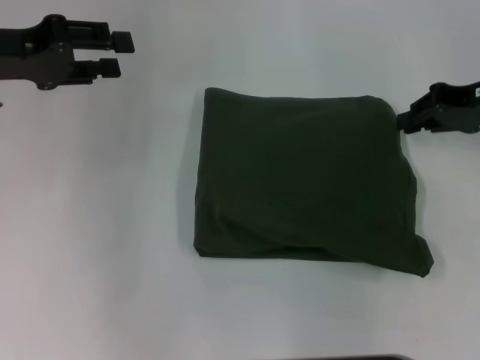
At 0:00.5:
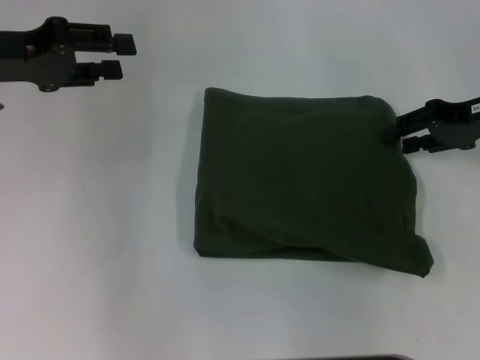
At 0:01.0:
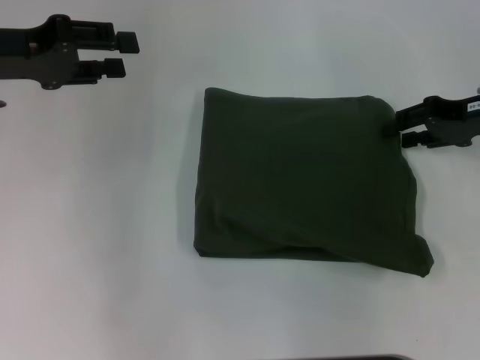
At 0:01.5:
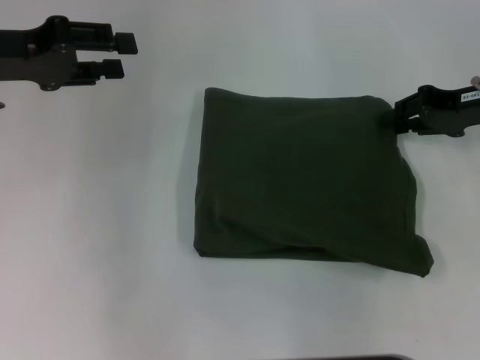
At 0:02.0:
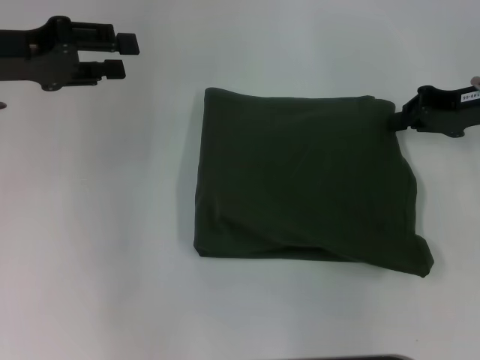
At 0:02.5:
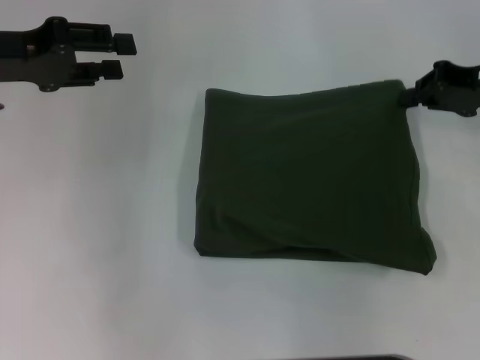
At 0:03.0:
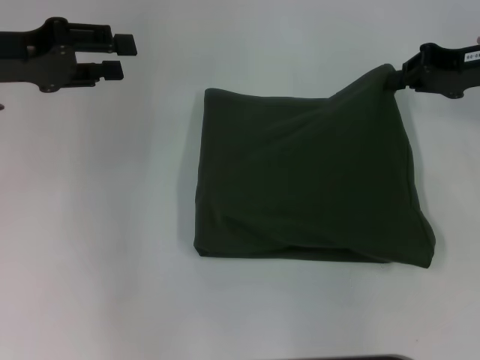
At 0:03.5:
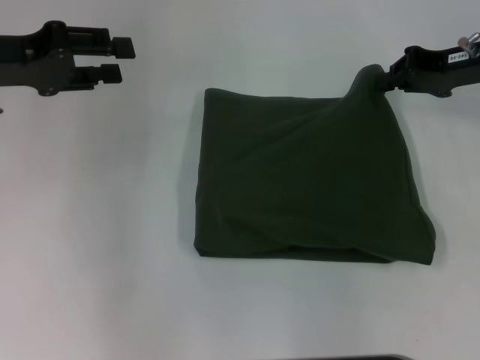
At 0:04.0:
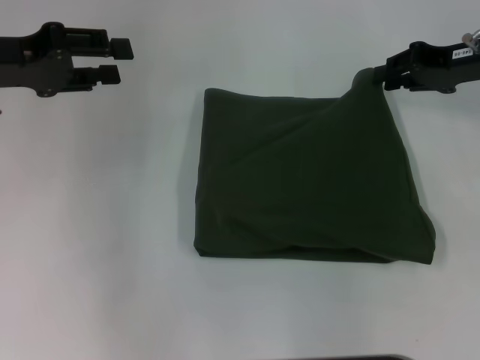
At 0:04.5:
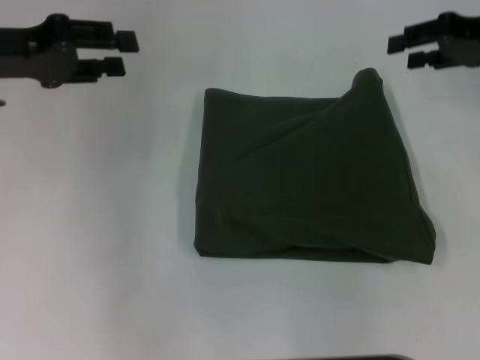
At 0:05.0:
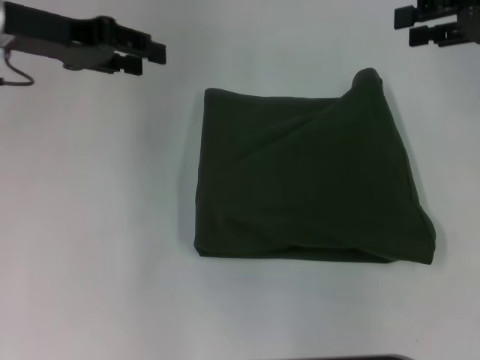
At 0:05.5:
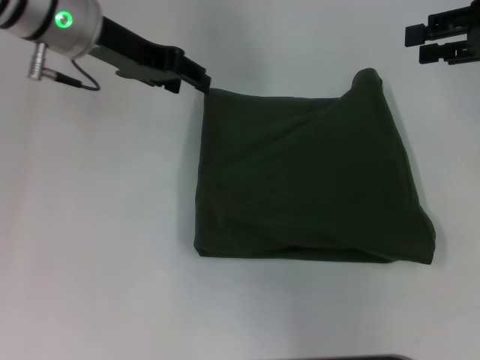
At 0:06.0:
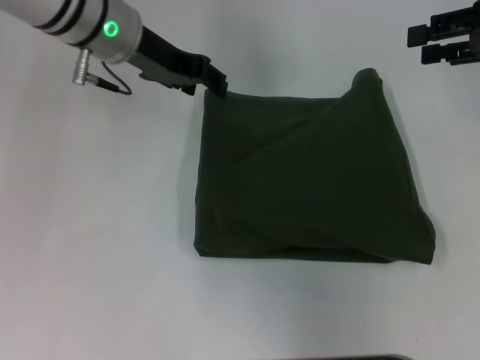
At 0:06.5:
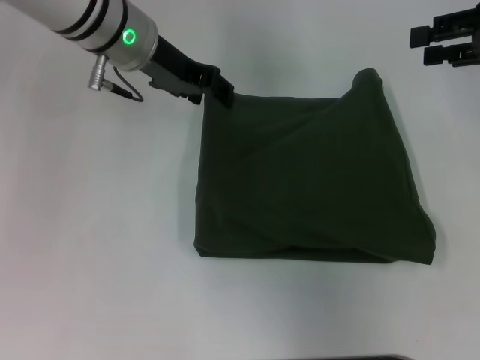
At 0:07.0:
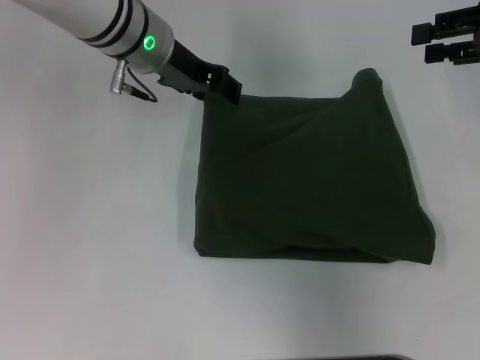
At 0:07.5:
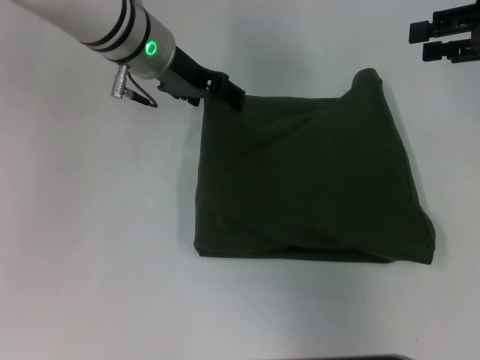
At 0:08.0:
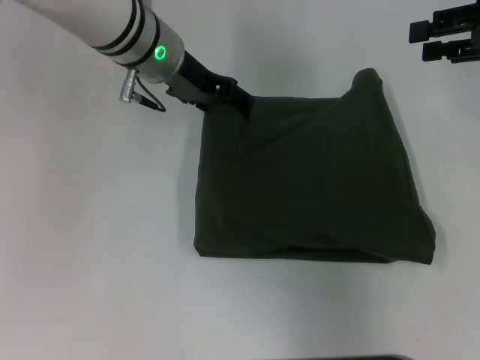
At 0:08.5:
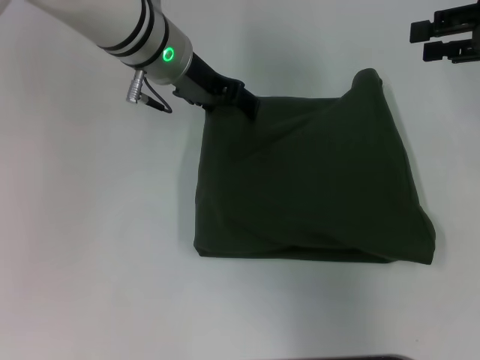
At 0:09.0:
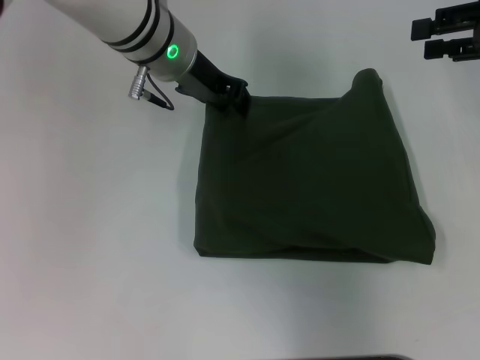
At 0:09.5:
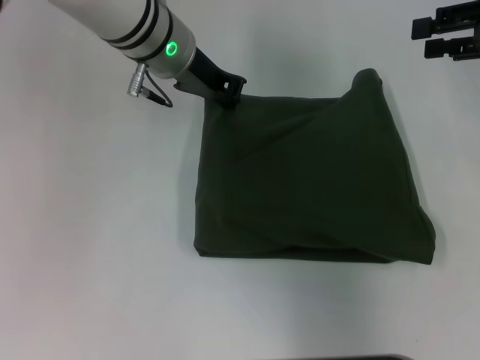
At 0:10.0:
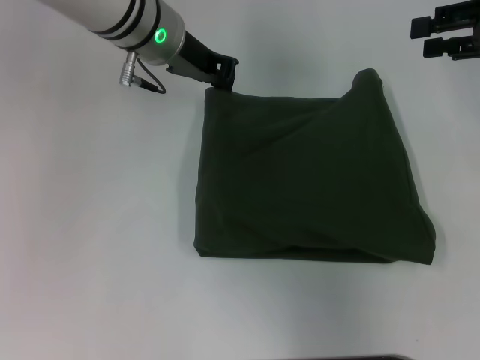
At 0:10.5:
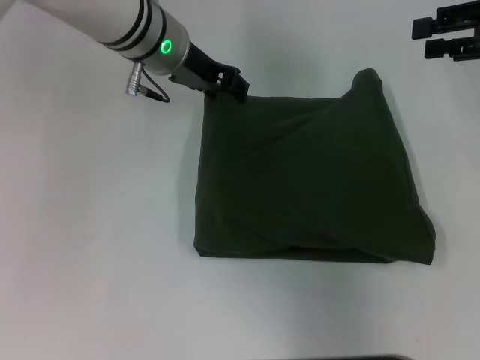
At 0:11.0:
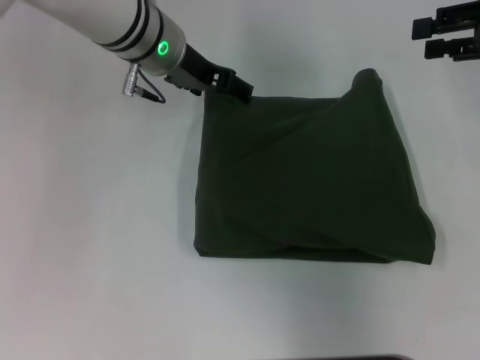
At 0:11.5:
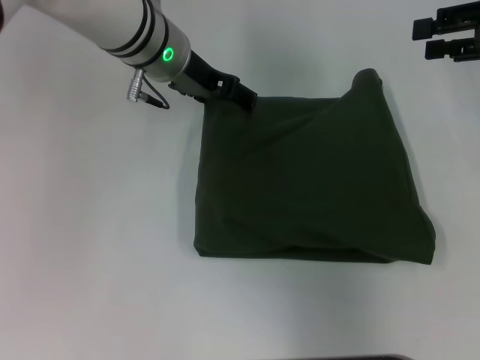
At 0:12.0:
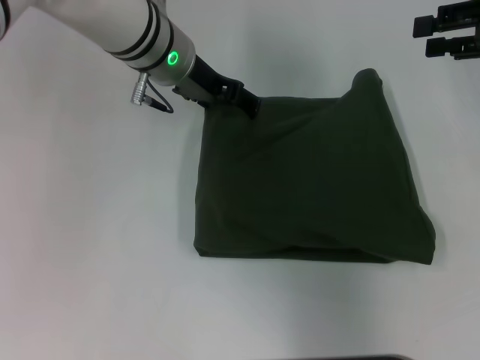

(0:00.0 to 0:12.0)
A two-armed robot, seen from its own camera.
0:00.0 - 0:02.0: The right gripper opens, then closes again.
0:02.0 - 0:04.0: The grippers move only a little.
0:04.0 - 0:06.0: The left gripper heads to the right and forward, covering some 15 cm. Meanwhile the right gripper goes approximately 5 cm upward, and opens its fingers.
0:06.0 - 0:08.0: The grippers stay close to where they were, moving slightly.
0:08.0 - 0:10.0: The left gripper closes up.
0:10.0 - 0:12.0: The left gripper opens.

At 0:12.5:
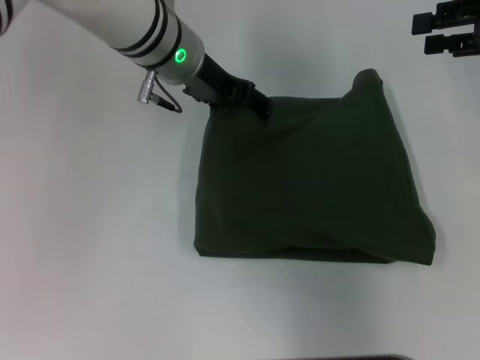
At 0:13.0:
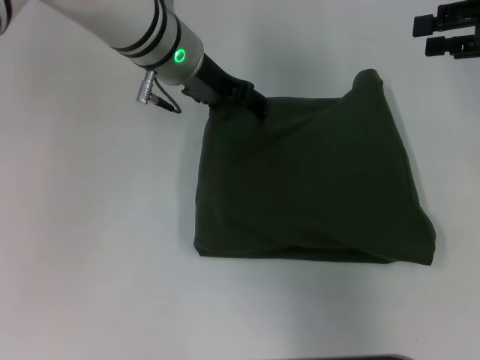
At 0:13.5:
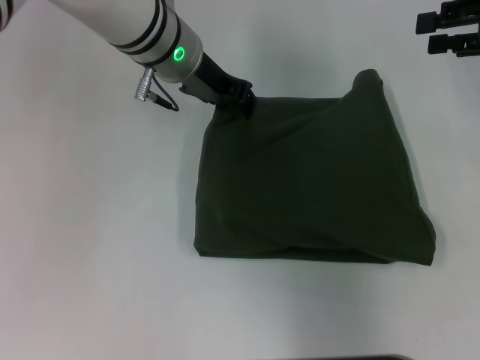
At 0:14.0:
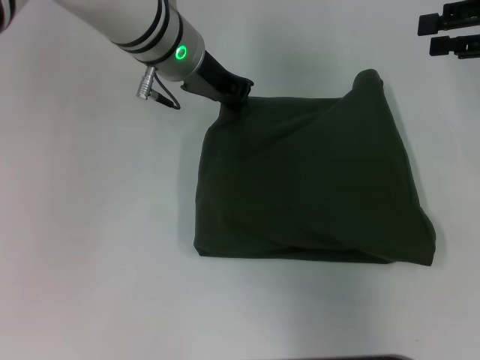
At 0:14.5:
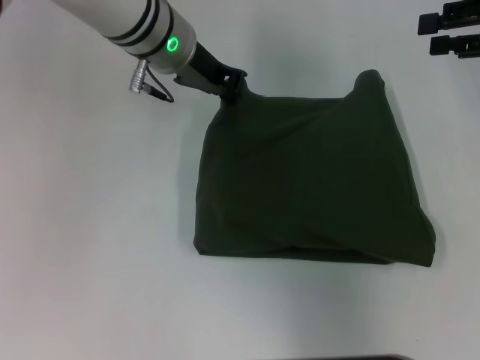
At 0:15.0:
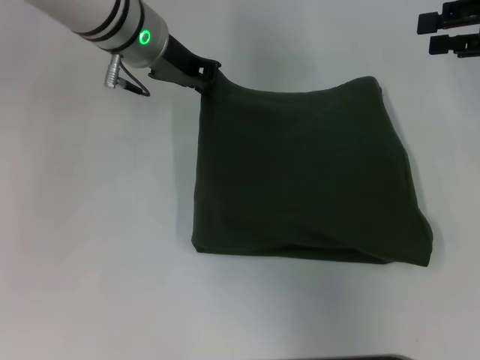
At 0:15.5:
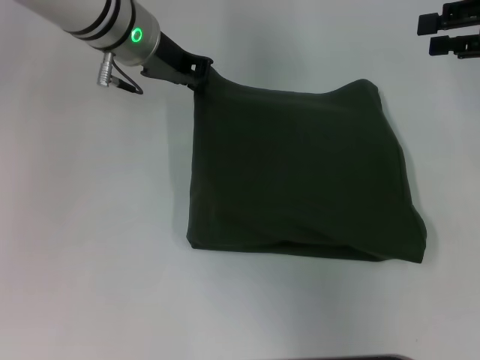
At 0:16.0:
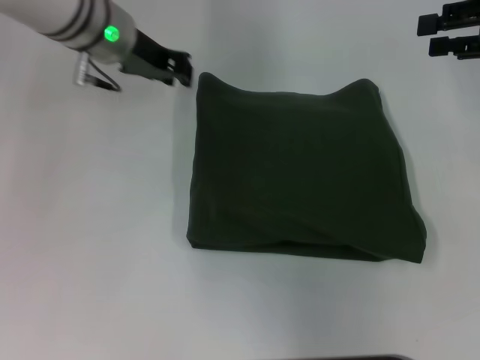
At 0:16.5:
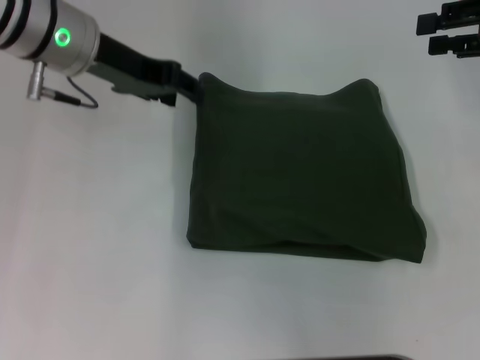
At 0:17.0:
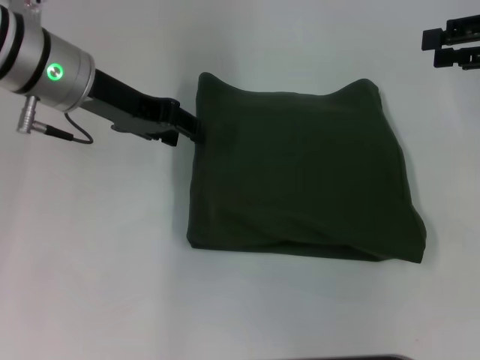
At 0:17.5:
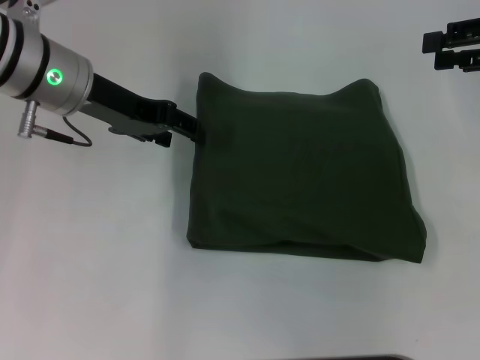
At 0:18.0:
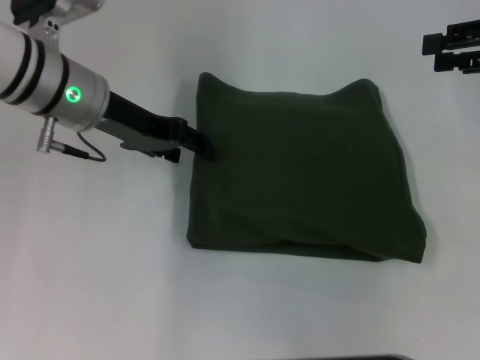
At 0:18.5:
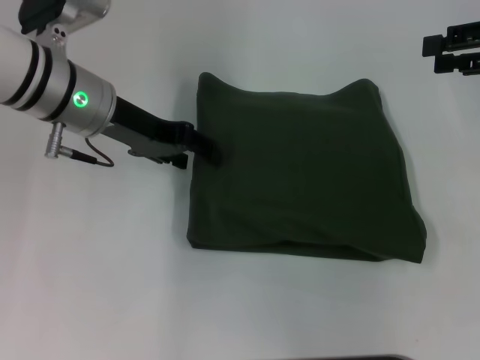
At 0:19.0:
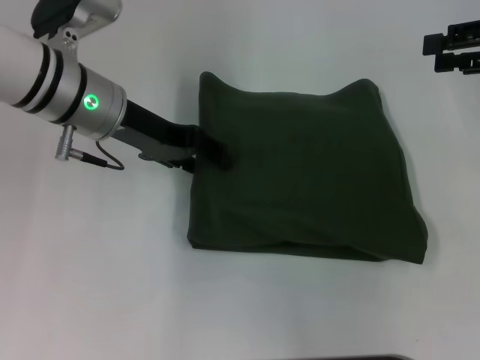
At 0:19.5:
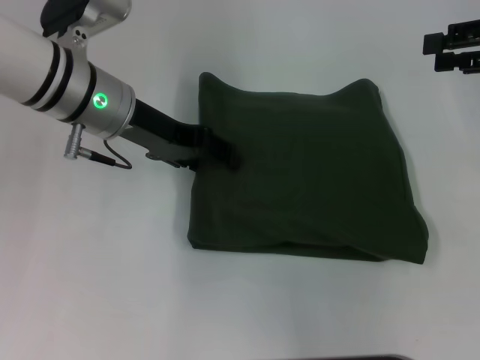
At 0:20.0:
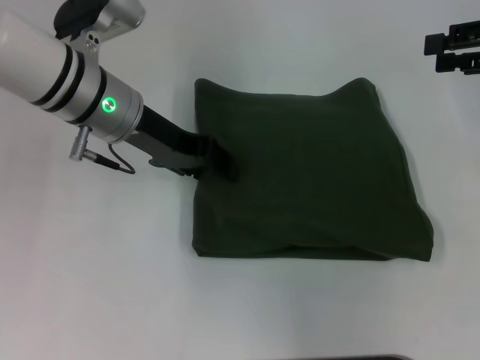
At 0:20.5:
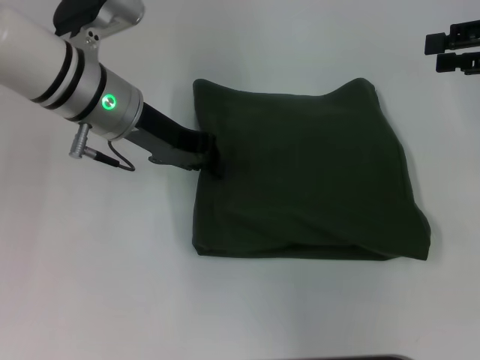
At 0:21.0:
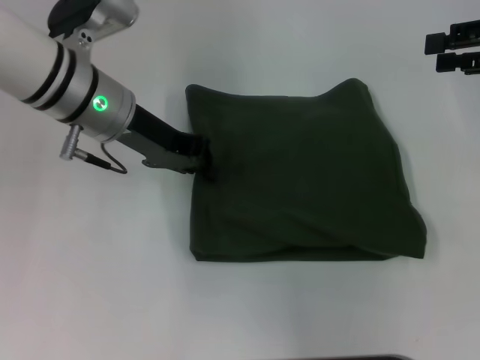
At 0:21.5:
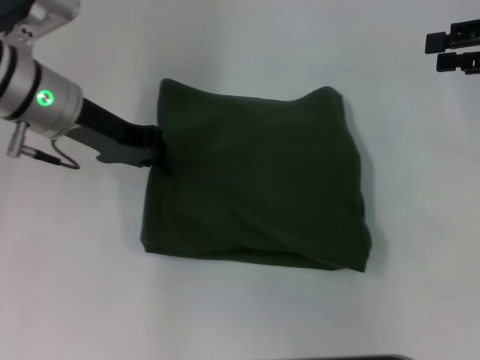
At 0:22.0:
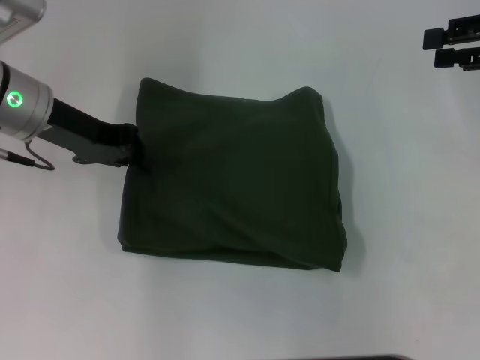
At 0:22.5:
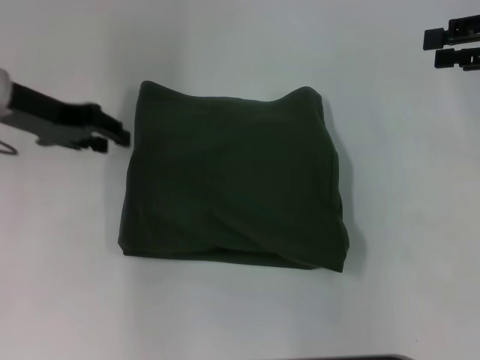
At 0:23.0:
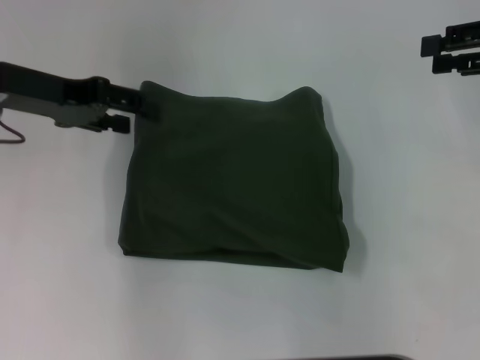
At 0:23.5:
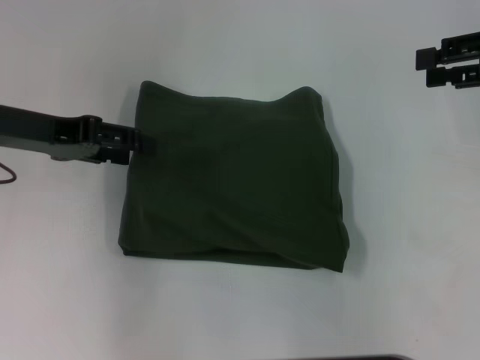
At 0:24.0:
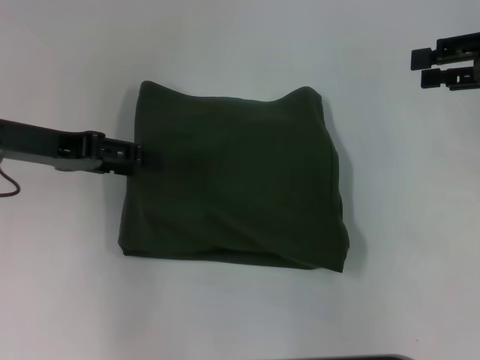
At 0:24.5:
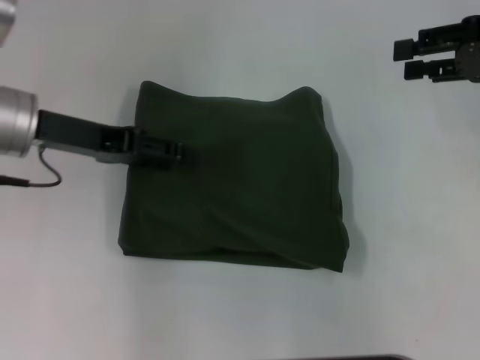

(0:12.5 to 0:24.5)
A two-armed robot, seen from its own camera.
0:12.5 - 0:14.5: The left gripper closes up.
0:14.5 - 0:16.5: The left gripper goes about 10 cm to the left, and opens up.
0:16.5 - 0:18.5: The left gripper ends up approximately 5 cm from where it was.
0:18.5 - 0:20.5: The left gripper closes its fingers.
0:20.5 - 0:22.5: The left gripper travels to the left by roughly 10 cm.
0:22.5 - 0:24.5: The left gripper opens its fingers.

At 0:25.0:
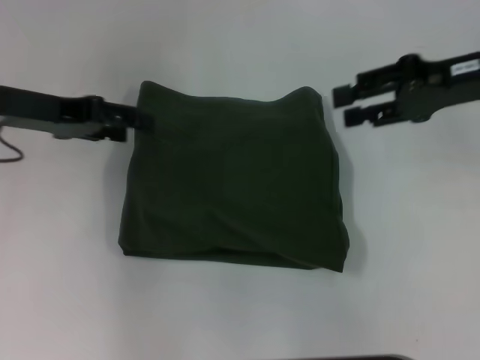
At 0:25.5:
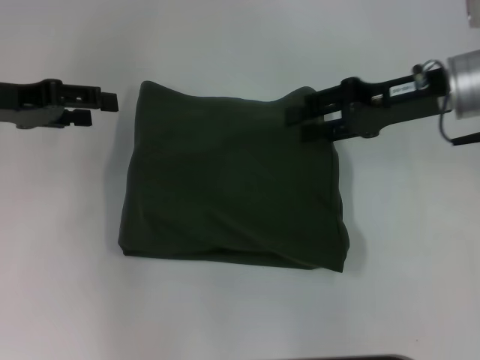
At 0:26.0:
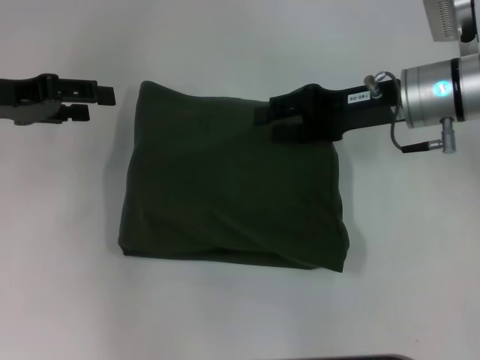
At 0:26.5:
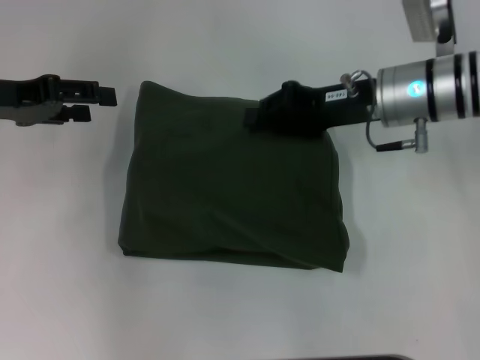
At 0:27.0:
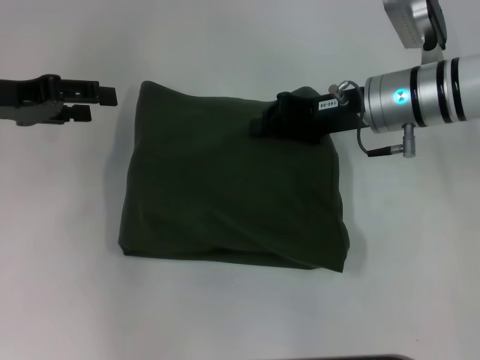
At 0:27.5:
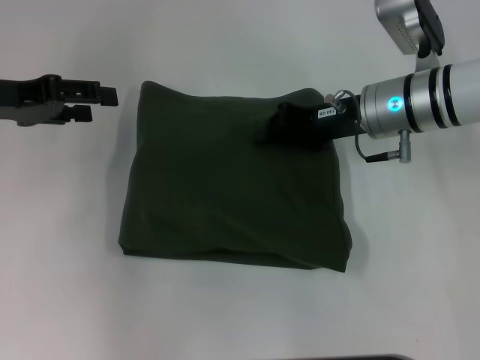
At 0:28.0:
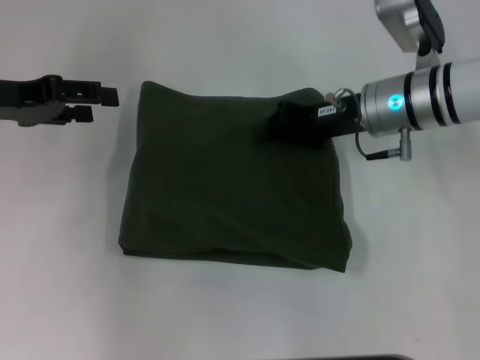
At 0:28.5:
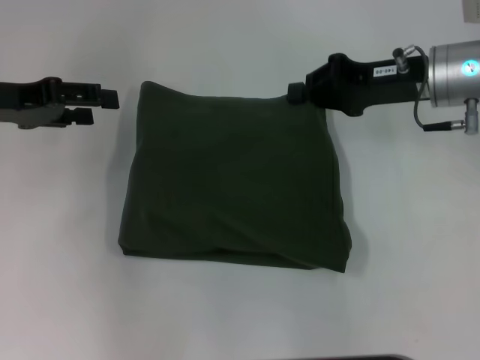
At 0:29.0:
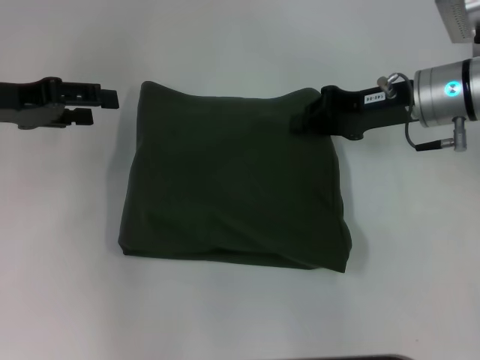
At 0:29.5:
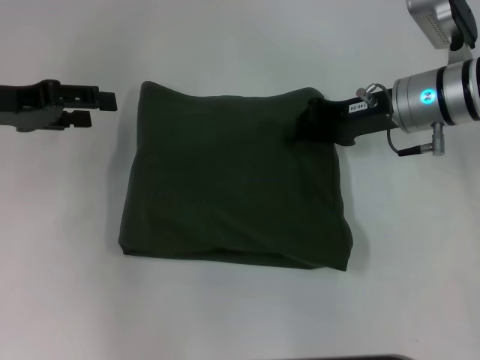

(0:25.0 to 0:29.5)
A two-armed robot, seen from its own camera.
0:25.0 - 0:27.0: The right gripper goes roughly 10 cm to the left and downward, and closes.
0:27.0 - 0:29.5: The grippers make only small movements.
